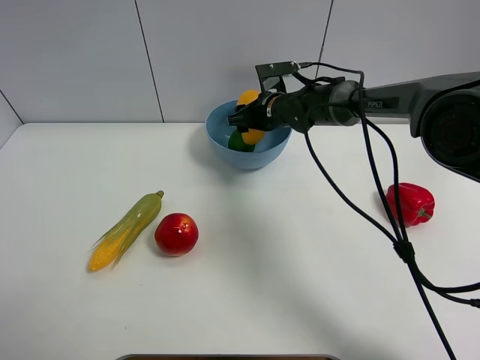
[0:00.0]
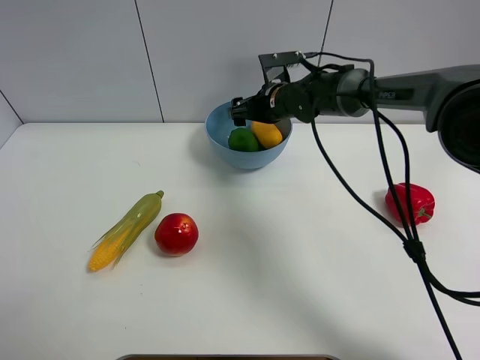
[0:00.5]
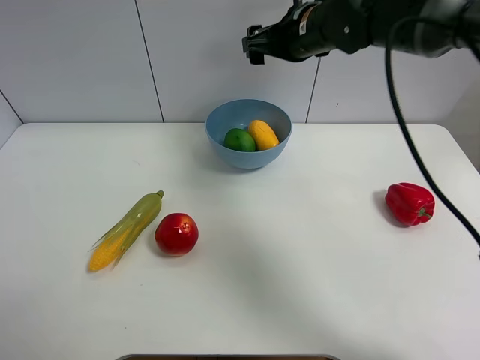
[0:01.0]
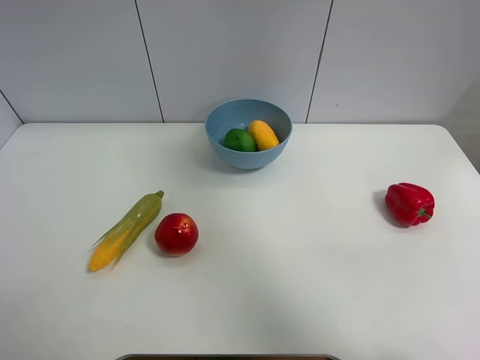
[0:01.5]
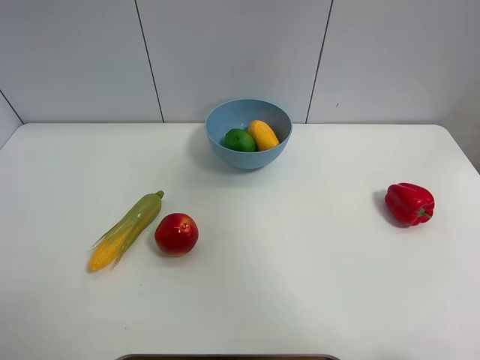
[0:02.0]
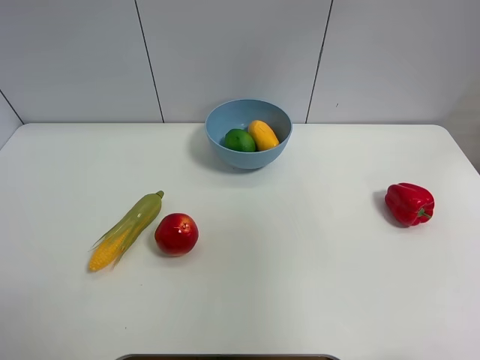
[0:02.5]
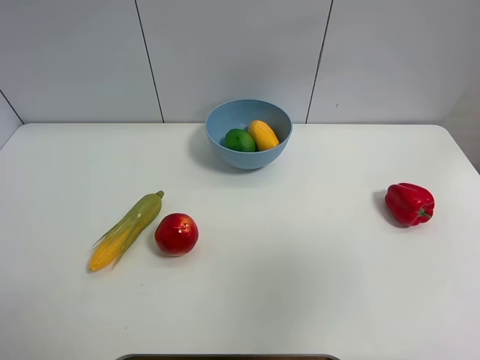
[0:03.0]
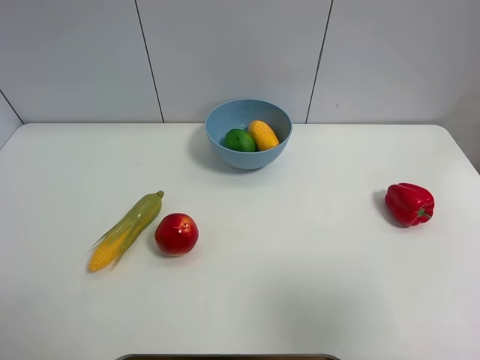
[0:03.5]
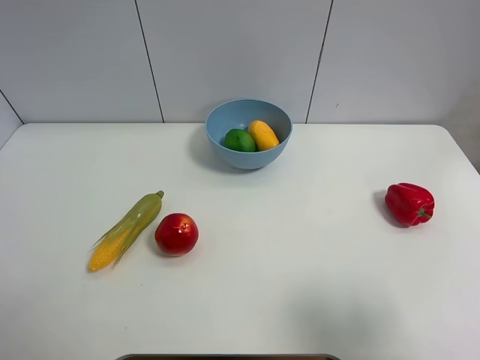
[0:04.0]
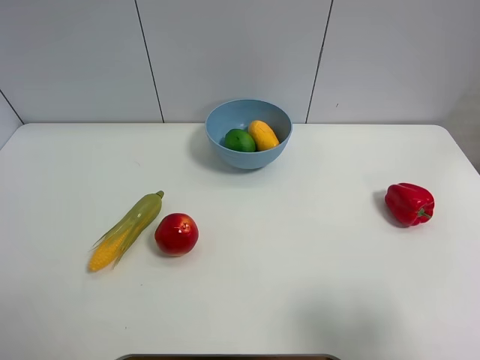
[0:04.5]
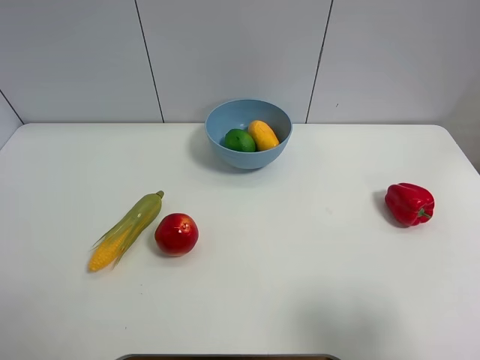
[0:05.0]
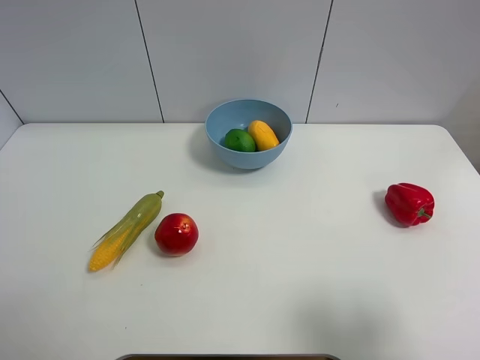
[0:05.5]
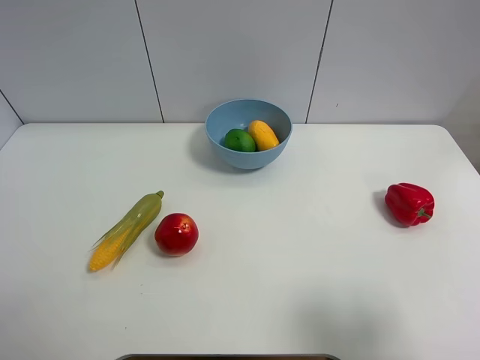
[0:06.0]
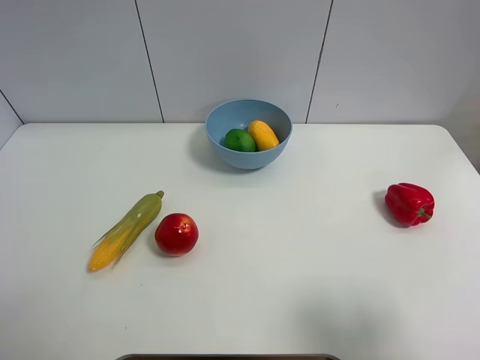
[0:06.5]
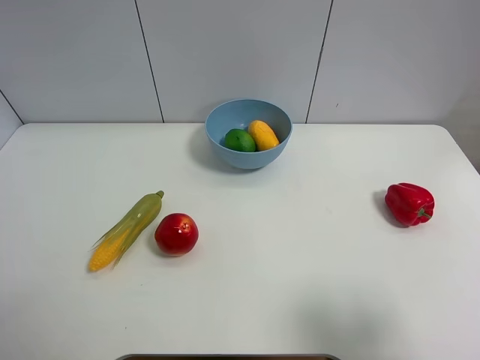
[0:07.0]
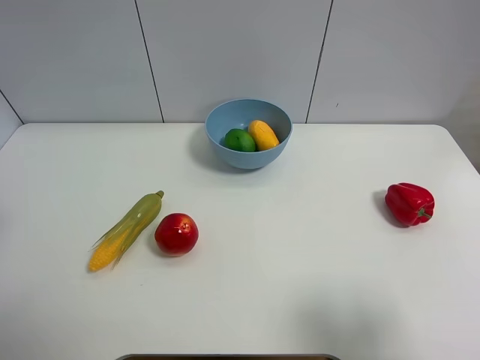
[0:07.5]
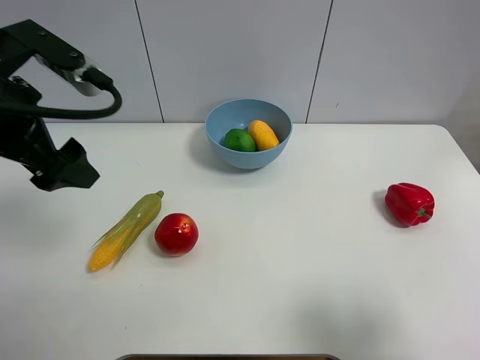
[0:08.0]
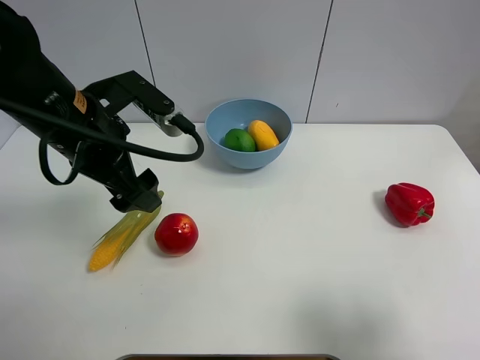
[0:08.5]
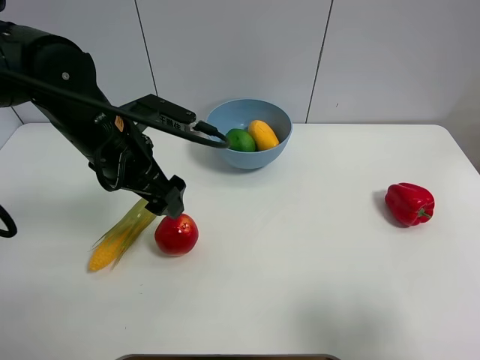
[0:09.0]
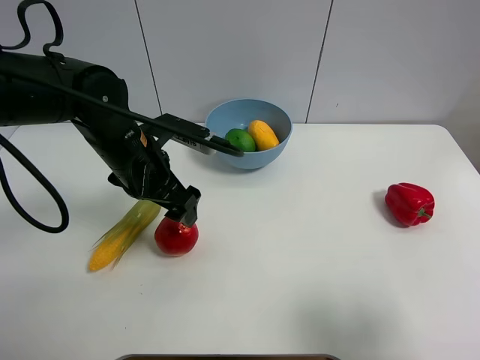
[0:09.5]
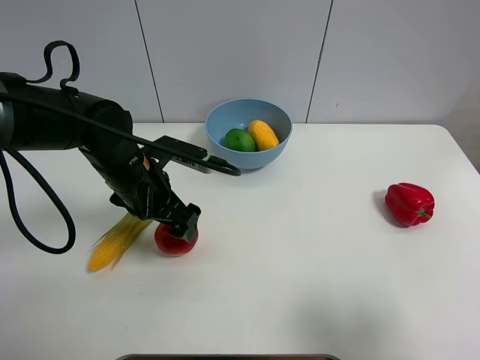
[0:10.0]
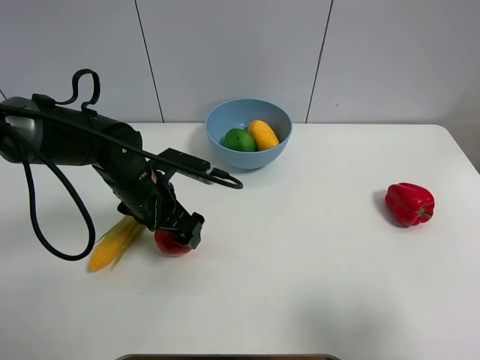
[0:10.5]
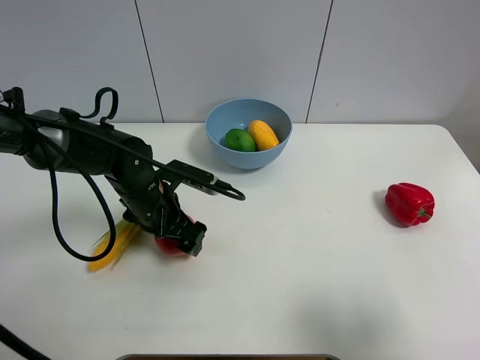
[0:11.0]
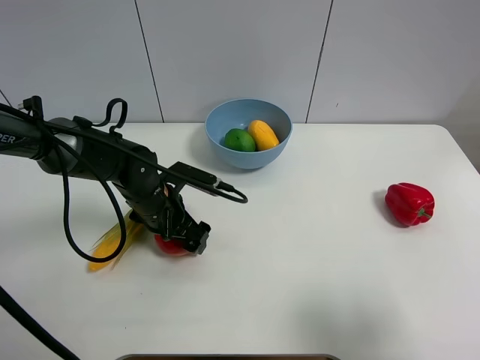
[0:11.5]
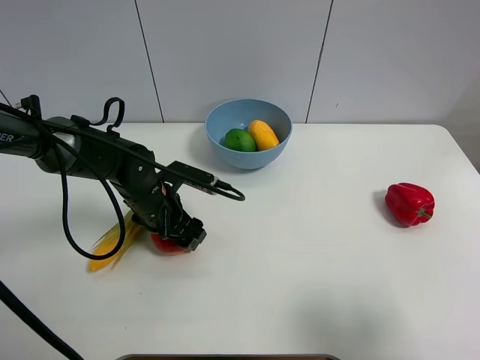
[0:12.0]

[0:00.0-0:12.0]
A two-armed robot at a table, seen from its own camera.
Task of the whole recording: Put the three fruits on the table into a bowl.
Step, 0:01.0 to 0:12.0: Grasp the pomegranate with left gripper.
0:00.0 to 0:02.0: The right gripper is displaced upward, backward and to the right by roughly 50 cm, and opens its fingers.
0:02.0 to 0:04.0: The right gripper goes about 30 cm downward and backward.
0:06.0 to 0:08.0: The left gripper goes some 25 cm forward and to the right.
0:08.0 to 0:10.0: The left gripper is displaced downward and to the right by about 20 cm.
0:10.0 to 0:12.0: The left gripper goes about 5 cm downward, and closes.

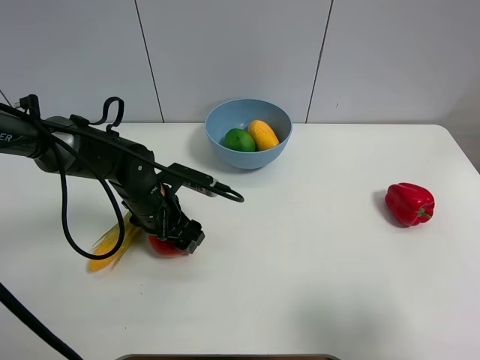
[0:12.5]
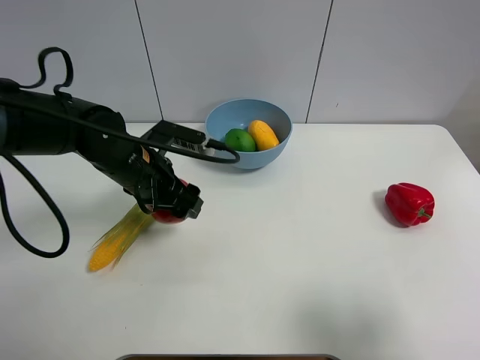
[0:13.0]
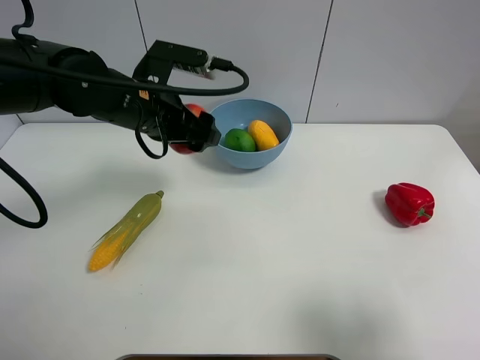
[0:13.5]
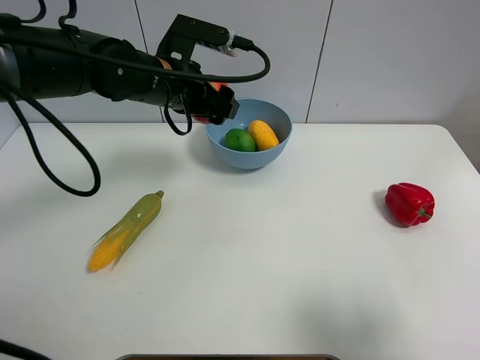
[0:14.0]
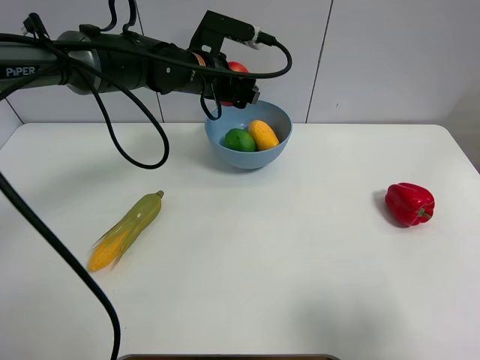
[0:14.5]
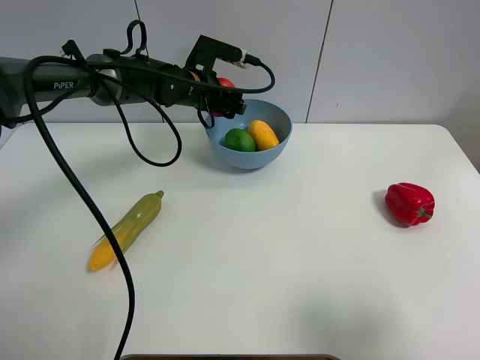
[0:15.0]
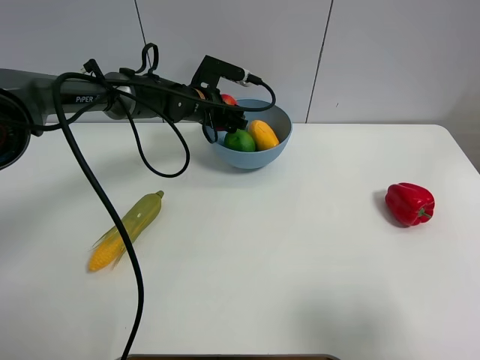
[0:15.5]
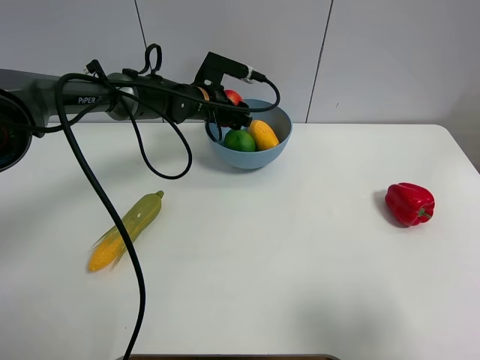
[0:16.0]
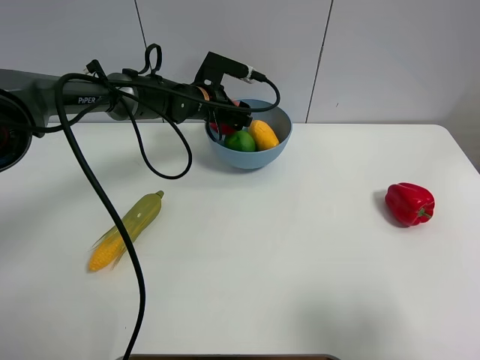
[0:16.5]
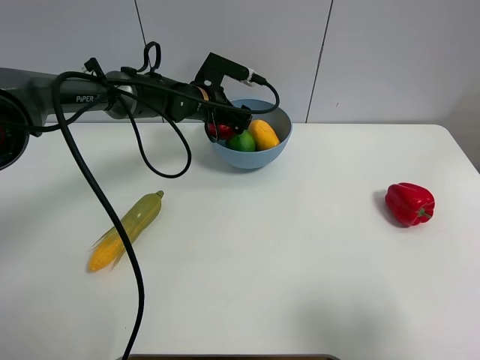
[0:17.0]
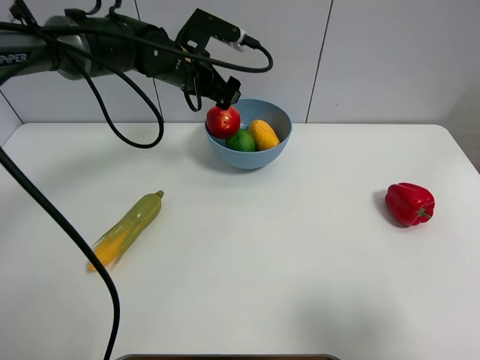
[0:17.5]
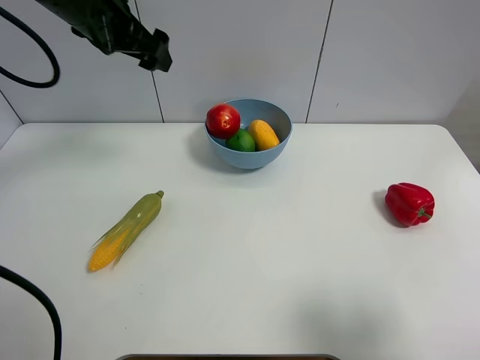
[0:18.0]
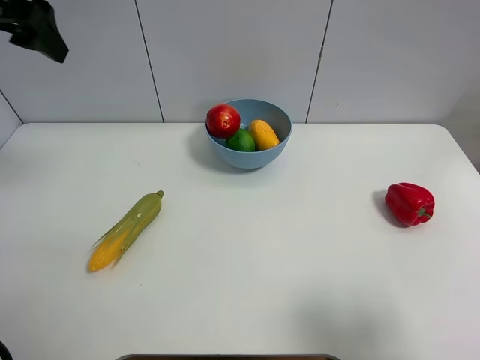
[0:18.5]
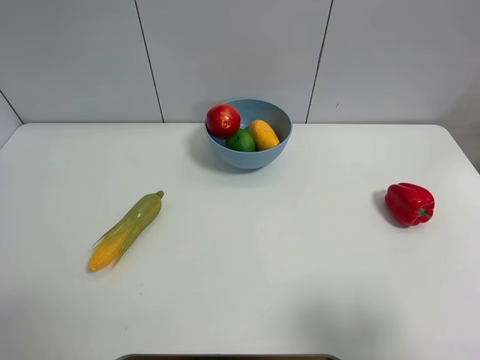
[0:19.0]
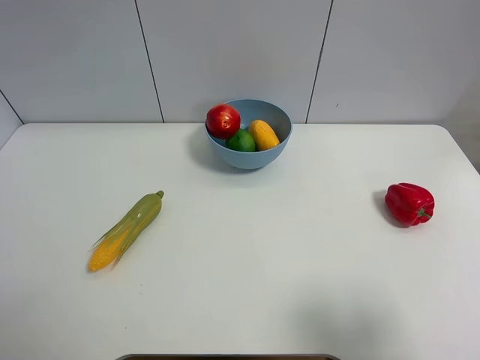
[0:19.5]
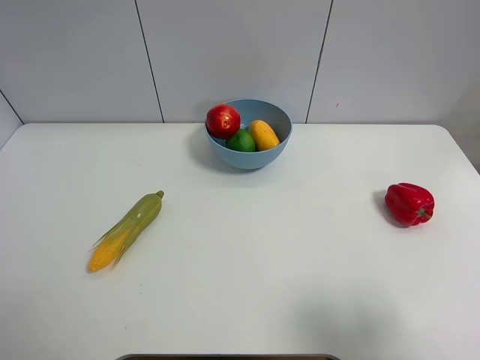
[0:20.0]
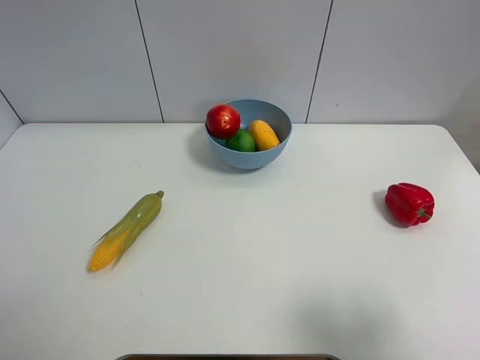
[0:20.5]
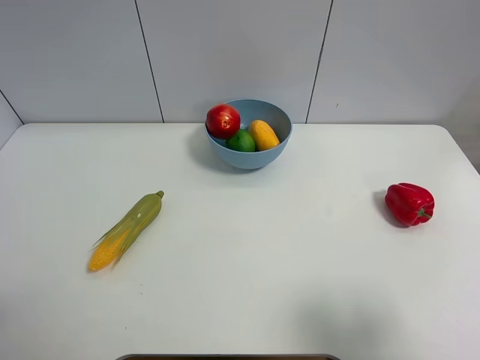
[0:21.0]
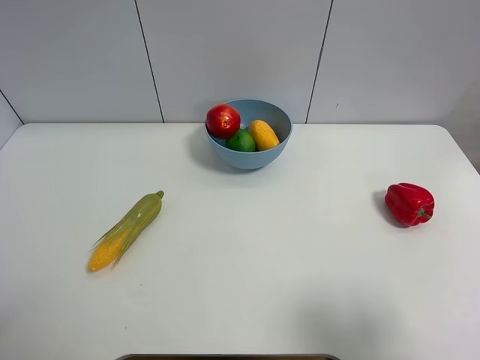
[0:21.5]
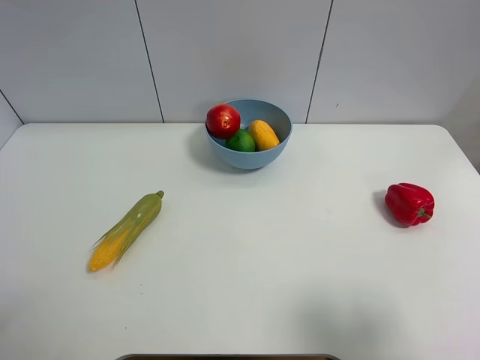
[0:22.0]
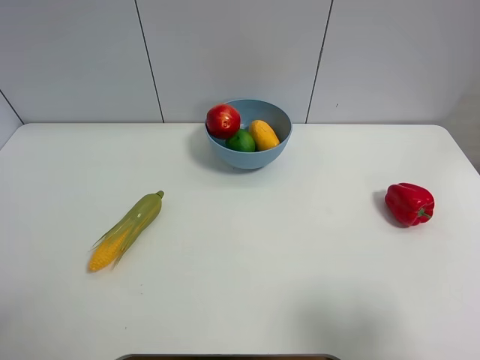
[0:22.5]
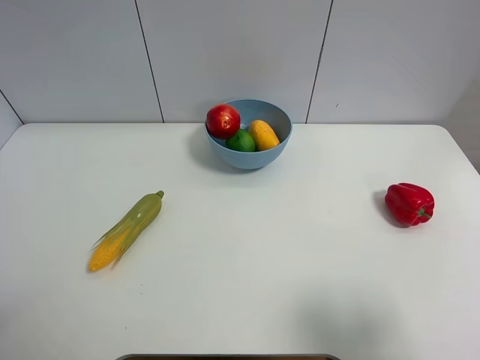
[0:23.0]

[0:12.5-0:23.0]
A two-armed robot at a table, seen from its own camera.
Task of the whole recording: Put the three fruits on the table into a bowl.
Step, 0:12.5 to 0:17.0: Place the pomegranate in the blue bowl with left gripper.
0:12.5 to 0:14.5: The left gripper moves upward, forward and to the right, roughly 20 cm.
0:14.5 to 0:16.5: The left gripper is displaced downward by some 10 cm, and opens up.
0:16.5 to 0:19.0: The left gripper is displaced upward, to the left and backward by about 50 cm, and opens up.
0:21.0 to 0:23.0: The two grippers keep their place.
